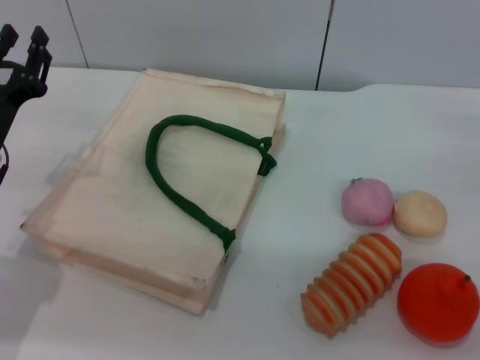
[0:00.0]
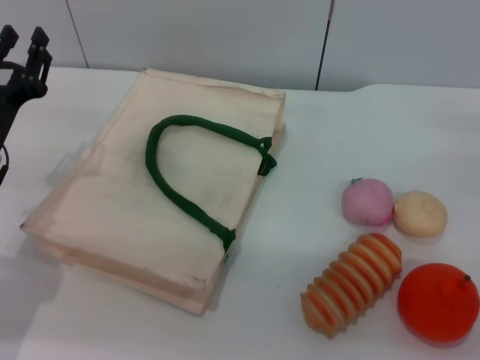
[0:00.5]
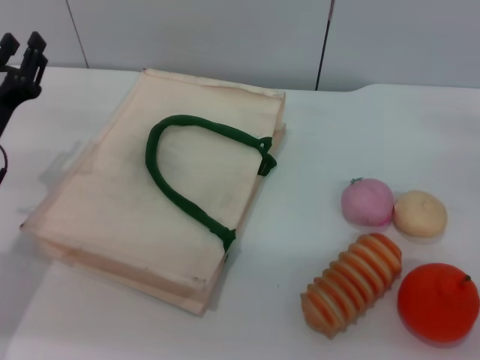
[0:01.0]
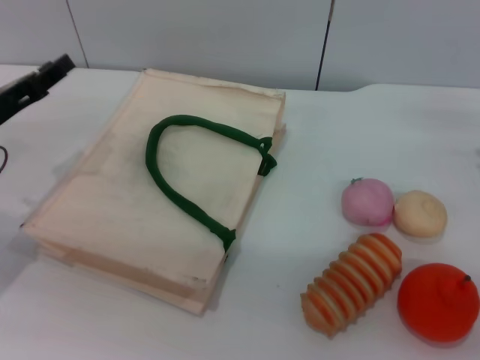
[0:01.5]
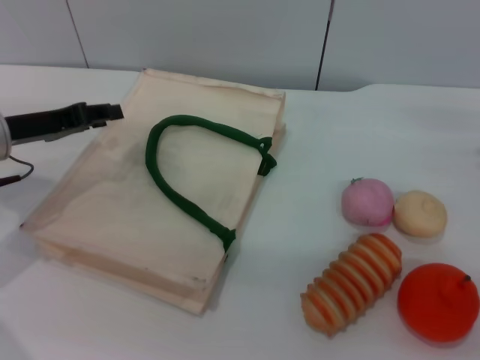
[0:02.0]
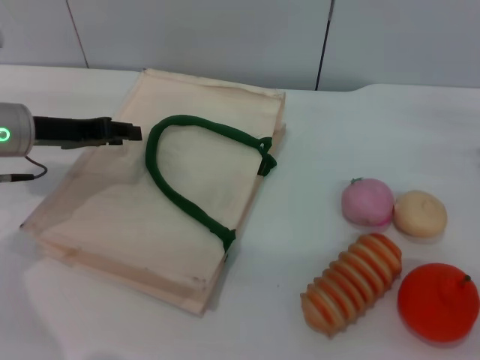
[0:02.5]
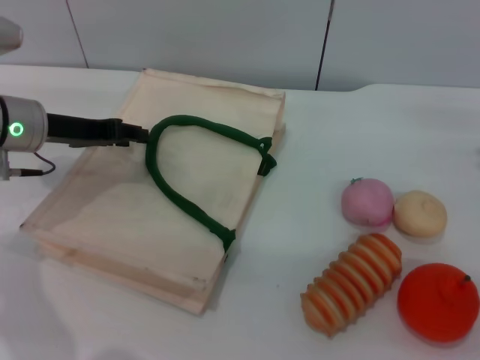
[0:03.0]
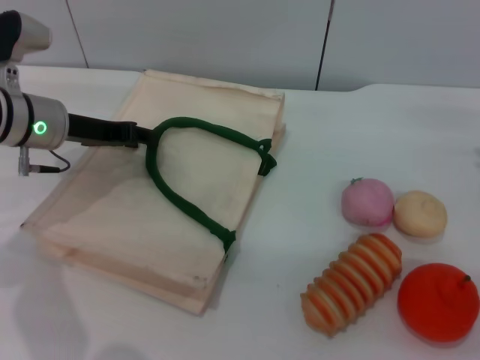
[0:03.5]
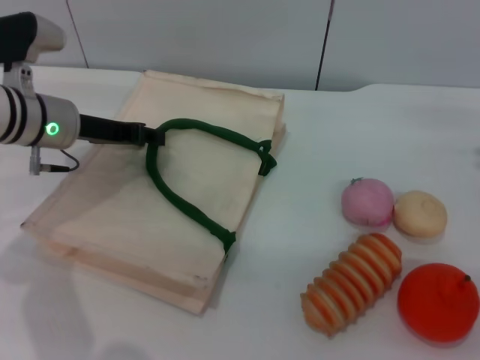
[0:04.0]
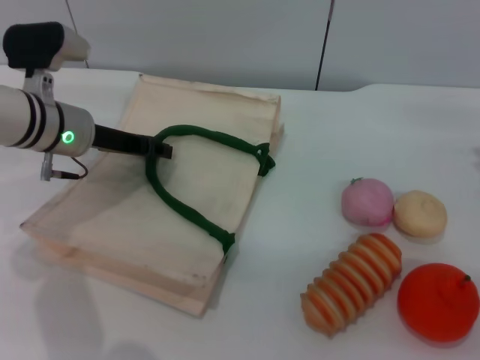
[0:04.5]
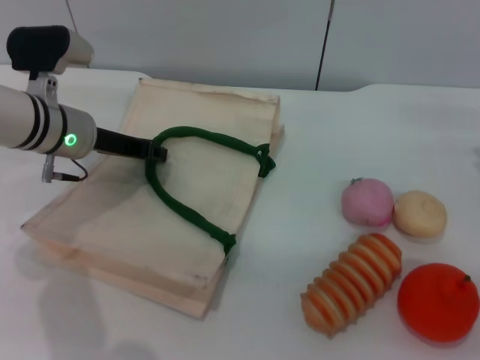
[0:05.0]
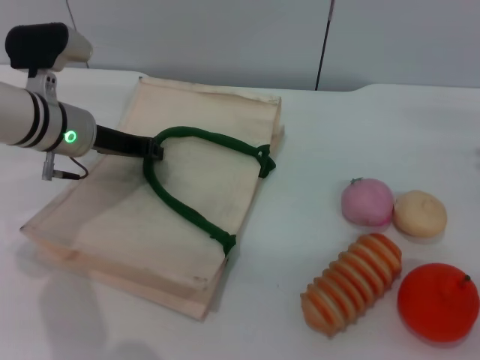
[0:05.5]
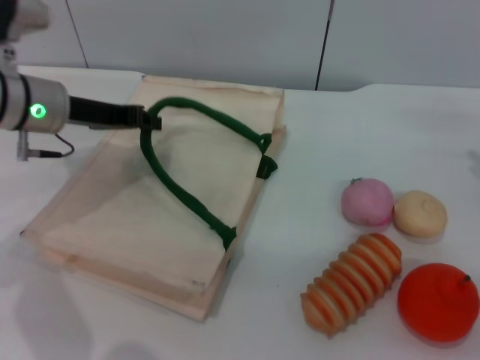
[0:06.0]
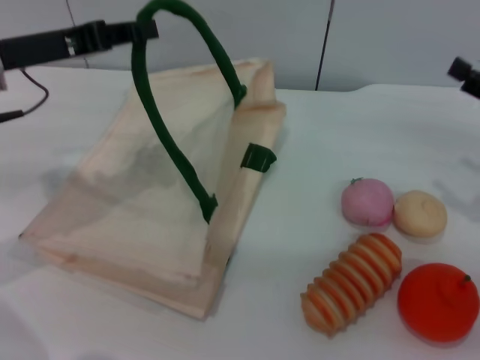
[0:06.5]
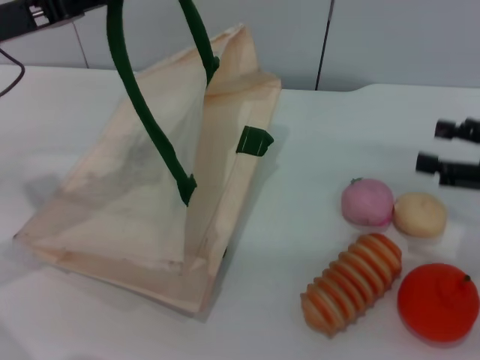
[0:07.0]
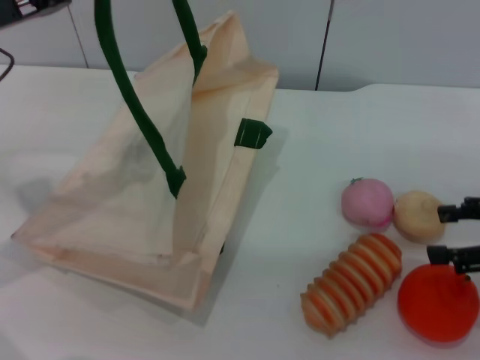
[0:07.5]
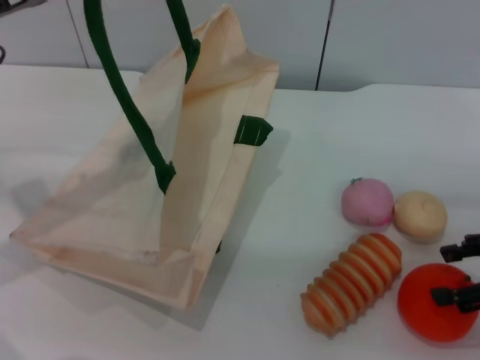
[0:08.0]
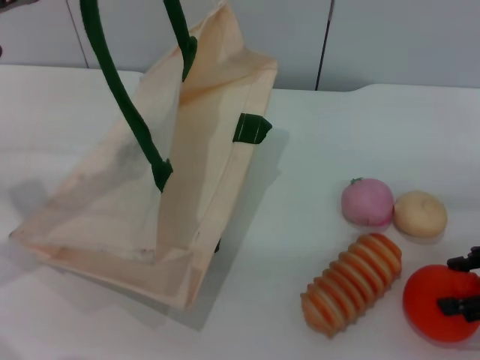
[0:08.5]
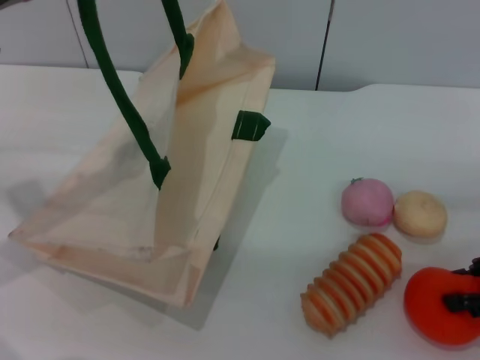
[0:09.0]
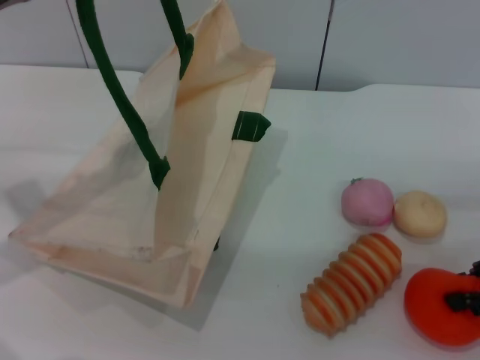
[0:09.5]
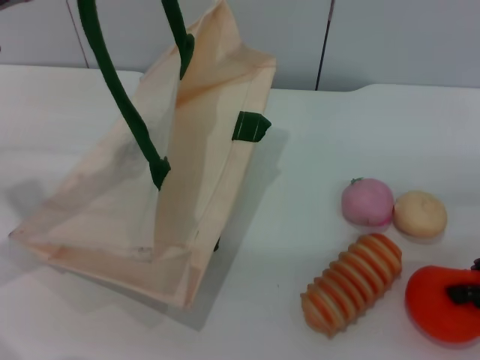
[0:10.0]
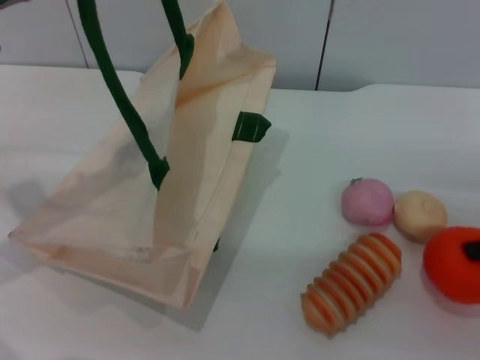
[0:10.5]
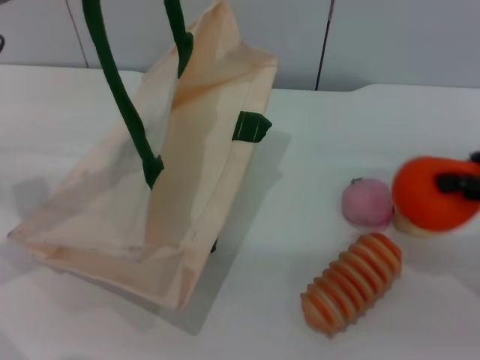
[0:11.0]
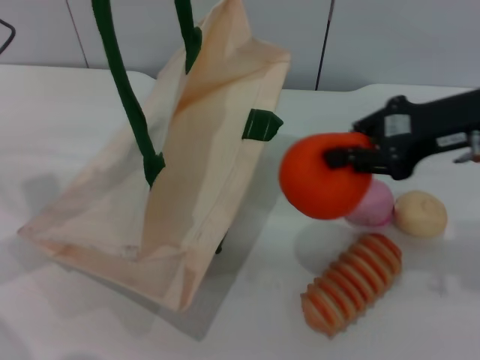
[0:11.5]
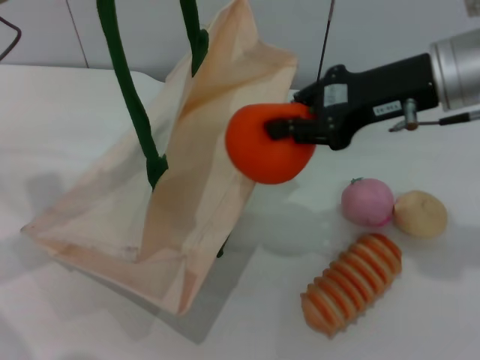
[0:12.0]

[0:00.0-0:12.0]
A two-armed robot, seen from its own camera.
Task of the whole recording: pick up the orange from the table and place it in the white handbag.
Step, 0:00.0 to 0:06.0: Lift the woven bag with the left gripper to open it.
Step, 0:06.5 to 0:10.5: Pick up the orange with the right gripper.
0:00.0 to 0:02.0: The left gripper travels forward by approximately 5 cm.
0:02.0 to 0:04.0: The left gripper travels to the right by about 5 cm.
0:04.0 to 0:06.0: The left gripper closes.
0:06.0 to 0:08.0: The right gripper travels backward by about 5 cm, while the left gripper goes some 10 cm upward, backward and to the left.
0:08.0 to 0:10.0: The right gripper closes its fingers.
0:10.0 to 0:12.0: The right gripper shifts roughly 20 cm to the left, forward and upward.

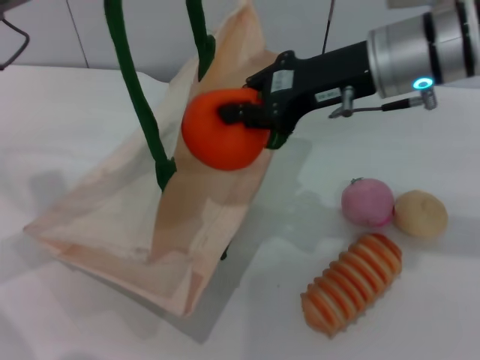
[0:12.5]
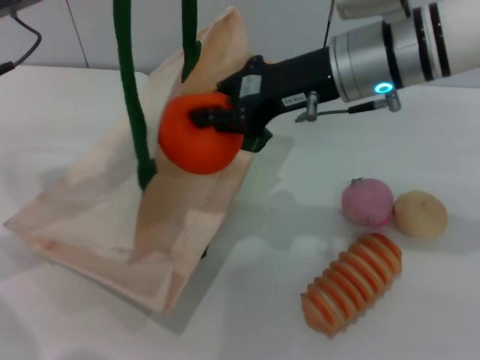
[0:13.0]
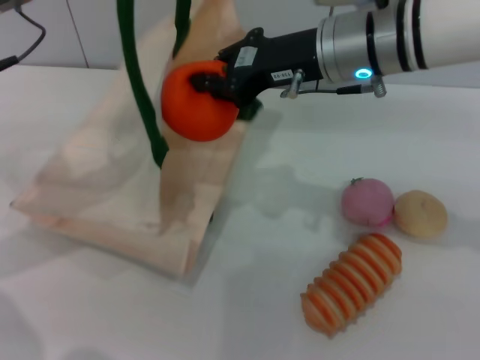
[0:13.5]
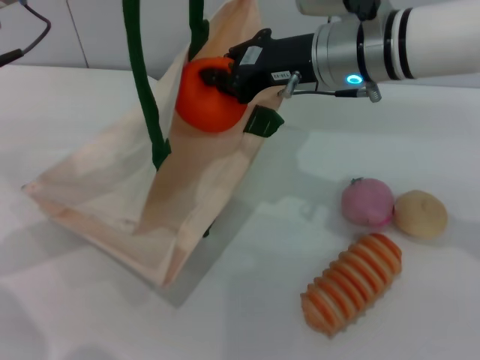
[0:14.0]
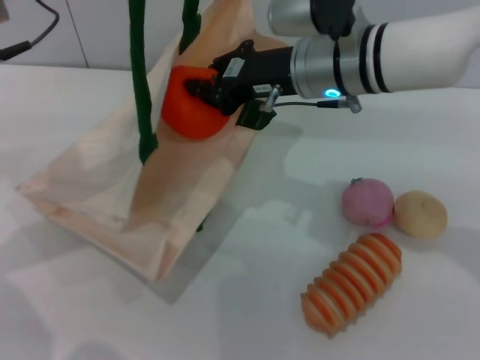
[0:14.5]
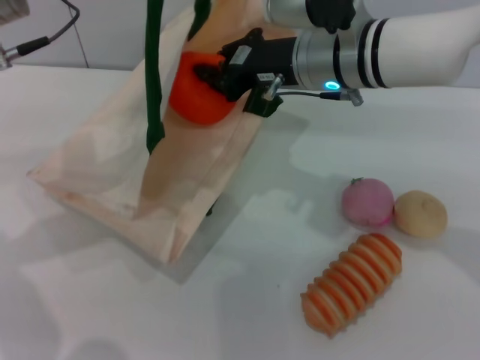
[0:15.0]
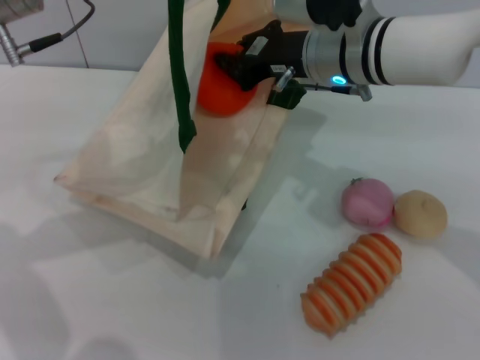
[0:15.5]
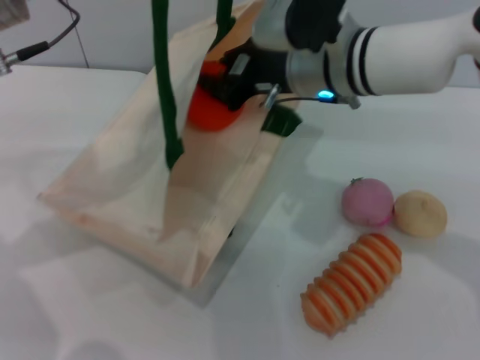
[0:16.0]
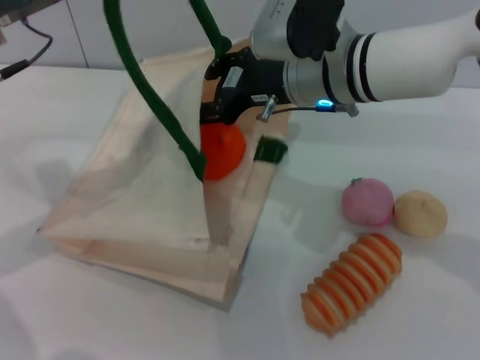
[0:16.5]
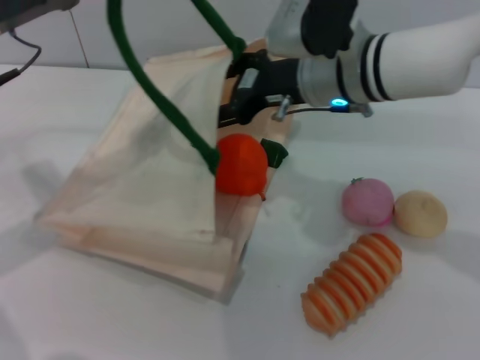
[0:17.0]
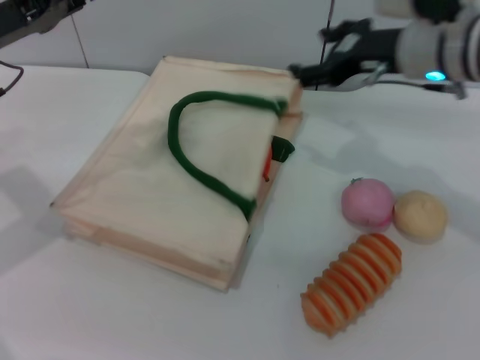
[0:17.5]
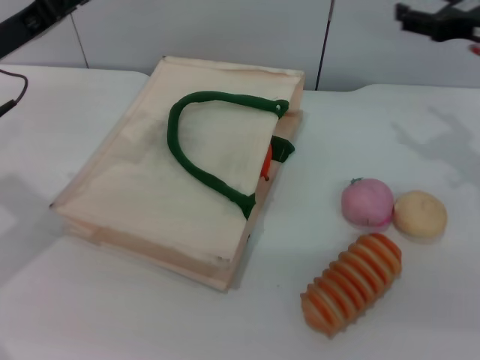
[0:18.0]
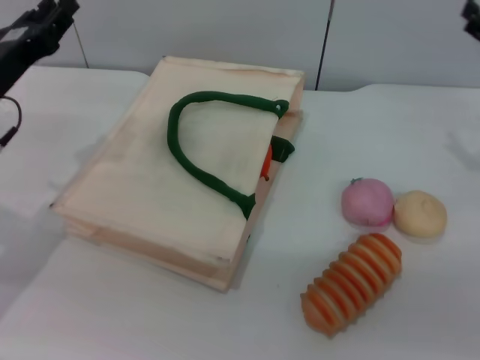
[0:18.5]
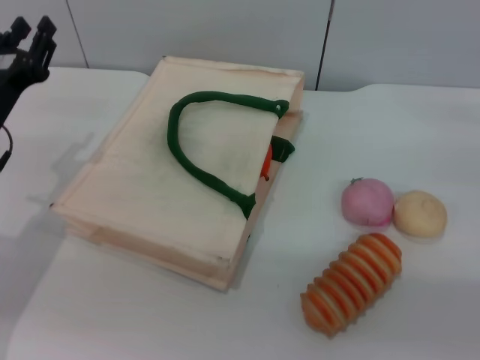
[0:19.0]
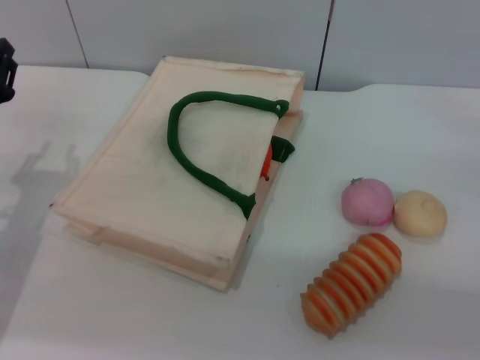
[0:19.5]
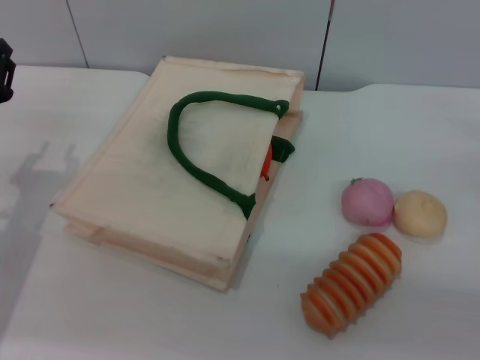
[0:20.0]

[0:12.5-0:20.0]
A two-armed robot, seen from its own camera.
Task of the whole recording: pick up the orange from the table and place it in the white handbag.
Step, 0:12.5 to 0:17.0: Place the orange into the woven bag with the right gripper.
0:12.5 to 0:14.5: The right gripper shifts about 5 cm to the left.
0:14.5 to 0:16.5: The right gripper opens its fingers.
0:16.5 to 0:18.0: The right gripper shifts about 20 cm to the right, and opens up, while the left gripper goes roughly 5 cm downward, and opens.
0:18.0 to 0:20.0: The right gripper is displaced downward, backward and to the right by approximately 20 cm. Meanwhile the left gripper is displaced downward and backward by approximately 10 cm.
